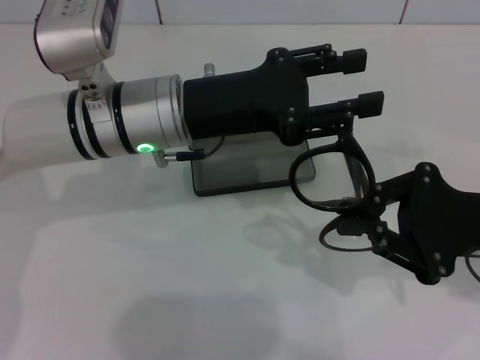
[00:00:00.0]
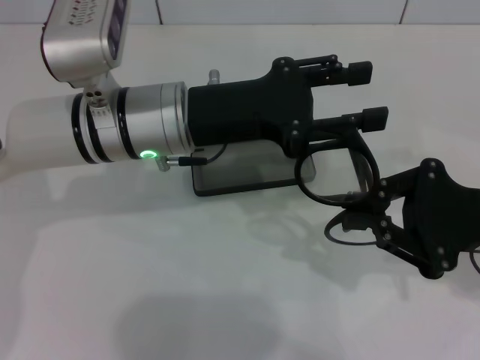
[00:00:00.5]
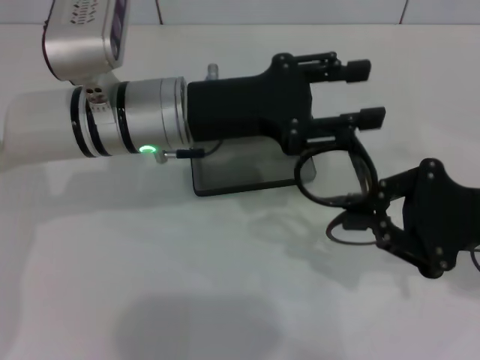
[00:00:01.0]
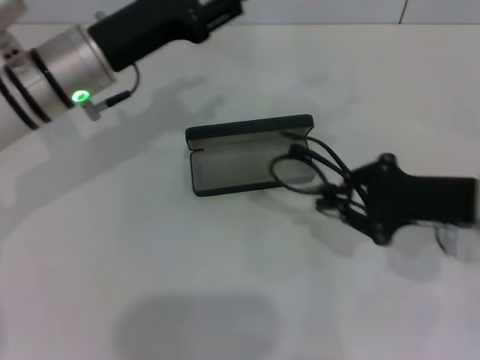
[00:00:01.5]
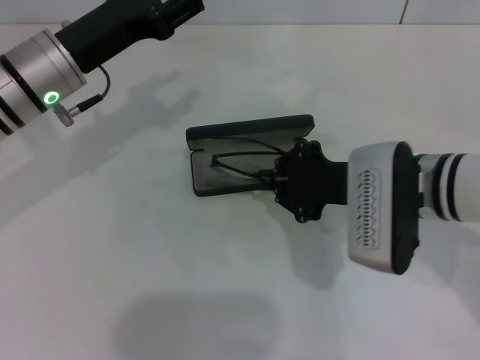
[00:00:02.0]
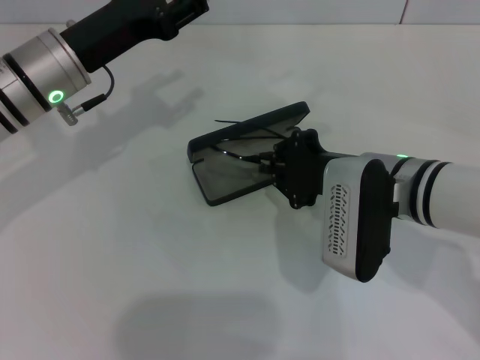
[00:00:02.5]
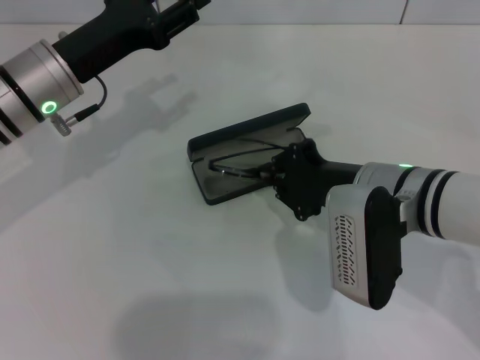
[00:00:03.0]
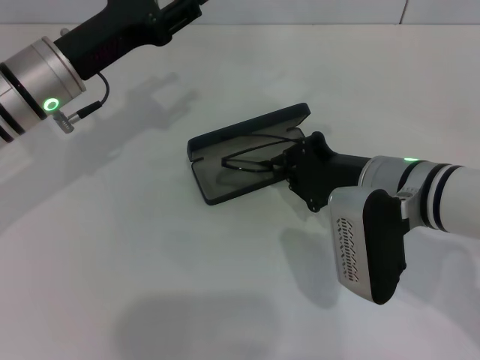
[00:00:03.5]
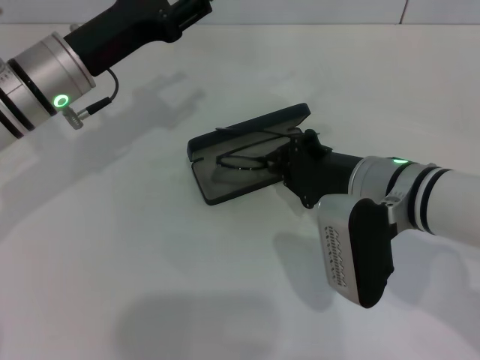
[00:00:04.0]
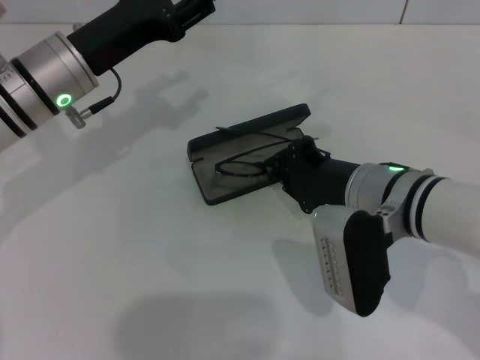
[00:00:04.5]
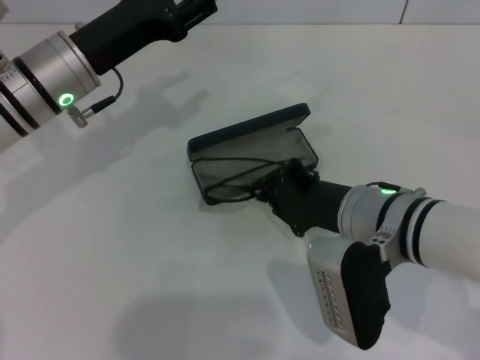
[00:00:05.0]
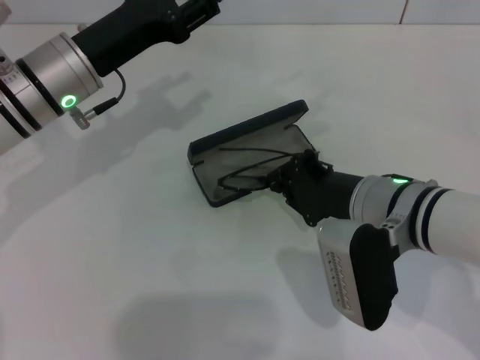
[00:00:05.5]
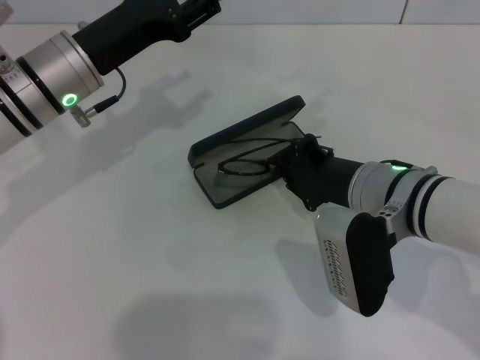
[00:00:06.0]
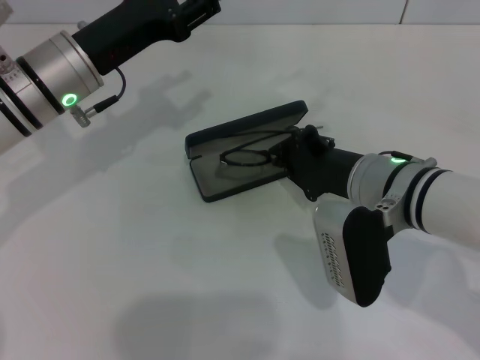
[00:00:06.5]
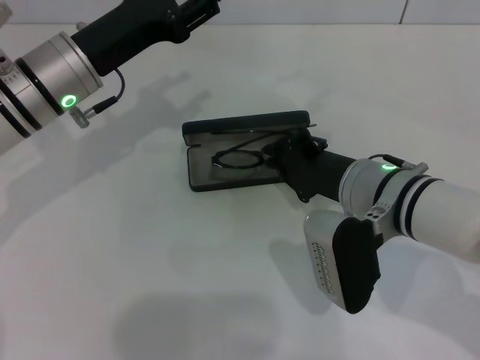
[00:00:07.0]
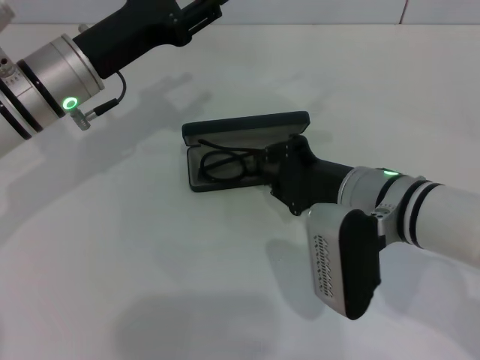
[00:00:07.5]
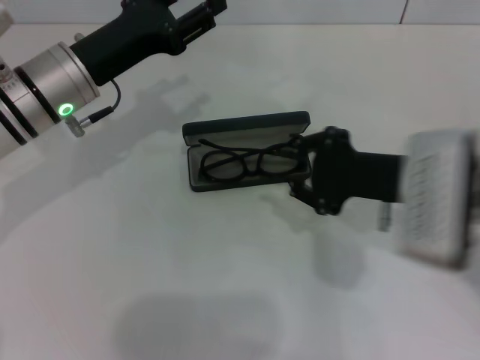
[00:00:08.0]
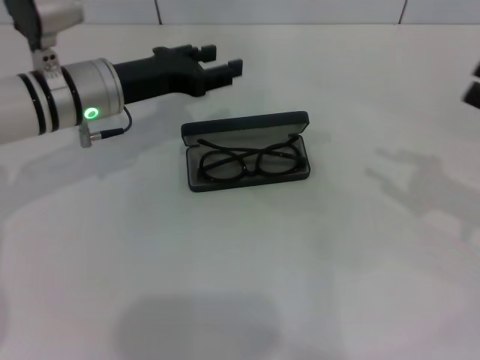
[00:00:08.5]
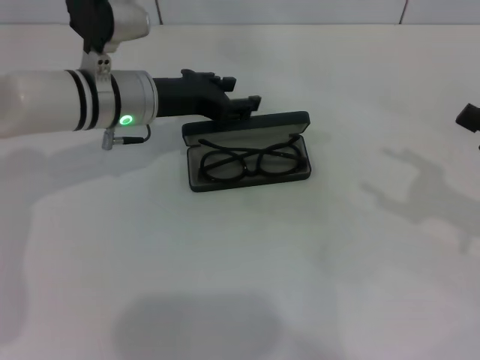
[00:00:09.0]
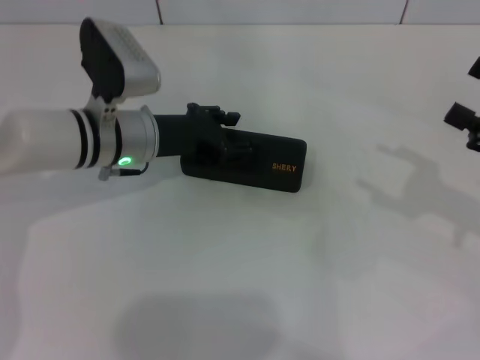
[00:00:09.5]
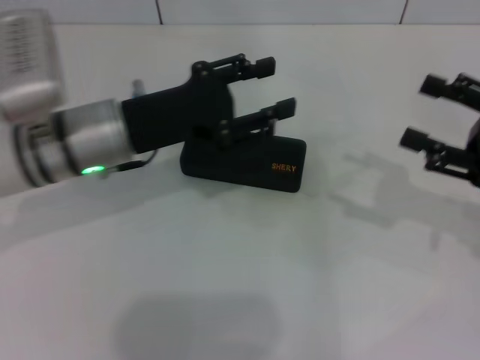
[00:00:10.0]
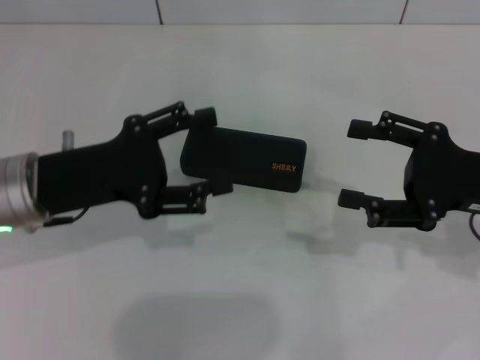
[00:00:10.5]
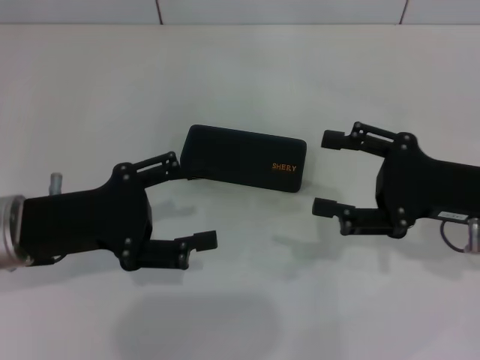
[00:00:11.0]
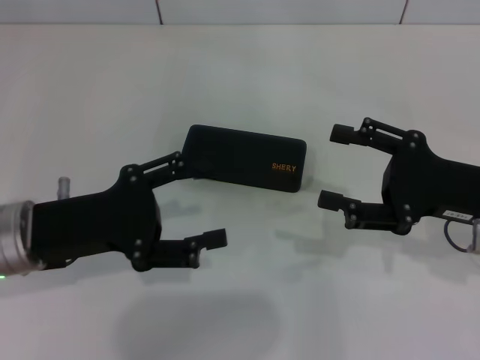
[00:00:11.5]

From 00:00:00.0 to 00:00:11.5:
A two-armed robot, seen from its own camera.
Step, from 00:00:01.0 to 00:00:07.0: Put the glasses into the case with your right hand.
Step, from 00:00:08.0 to 00:00:09.5: Close the glasses case with your left hand.
From 00:00:00.0 to 00:00:02.0: Both grippers travel together to the left, roughly 10 cm.
From 00:00:04.0 to 00:00:07.5: The grippers make only small movements.
From 00:00:07.5 to 00:00:09.5: The right gripper heads to the right, covering about 20 cm, and opens up. Meanwhile the left gripper travels downward by approximately 5 cm.
From 00:00:09.5 to 00:00:11.5: The right gripper heads to the left, covering some 10 cm. Meanwhile the left gripper is displaced backward and to the left by approximately 15 cm.

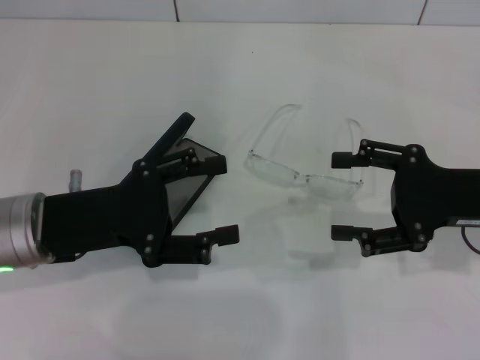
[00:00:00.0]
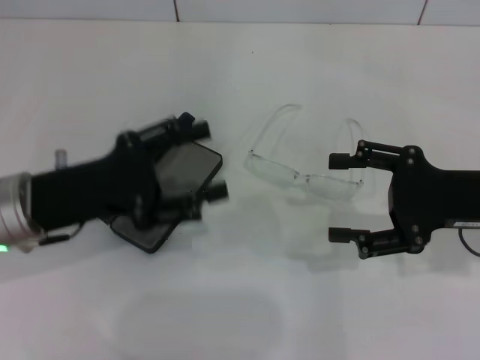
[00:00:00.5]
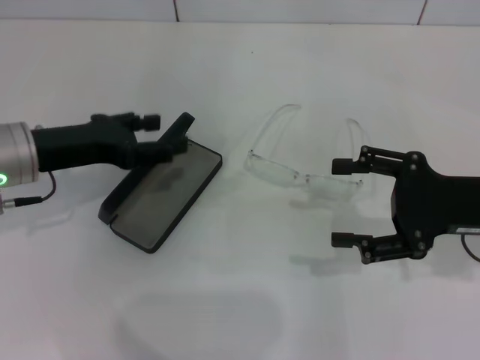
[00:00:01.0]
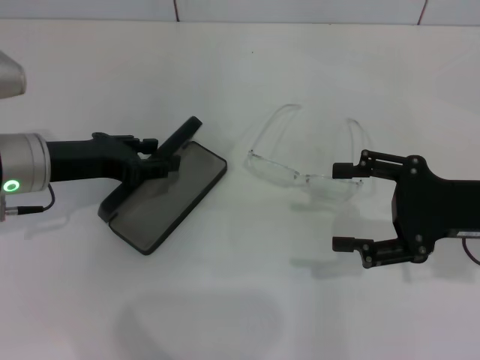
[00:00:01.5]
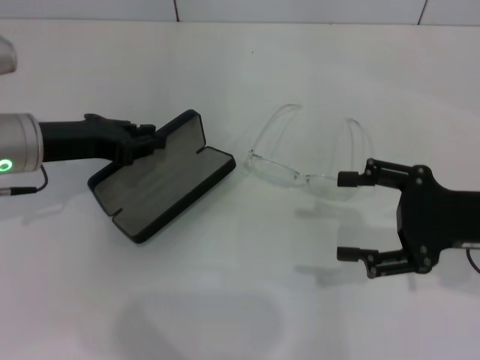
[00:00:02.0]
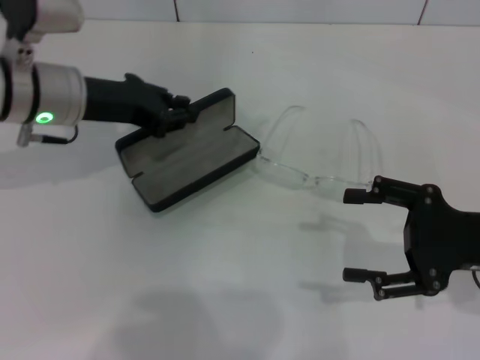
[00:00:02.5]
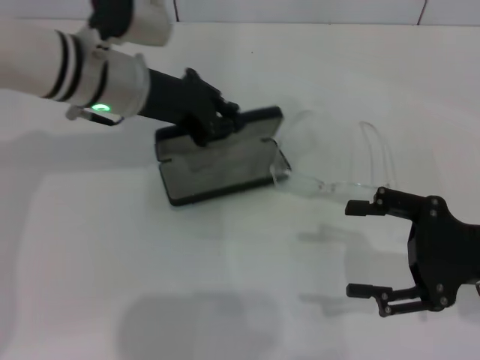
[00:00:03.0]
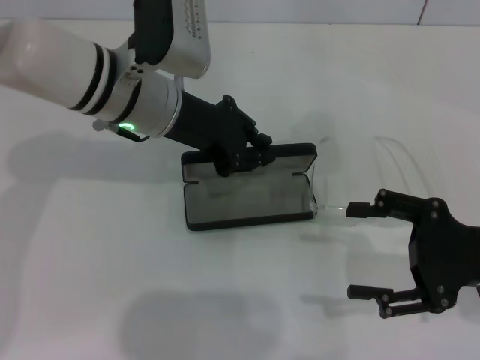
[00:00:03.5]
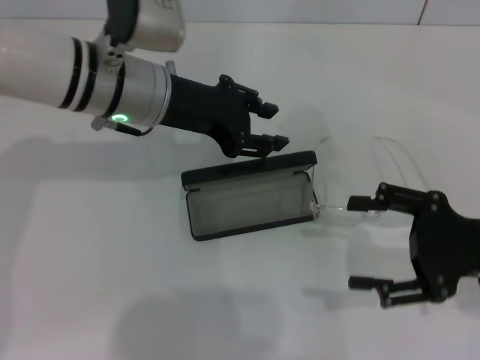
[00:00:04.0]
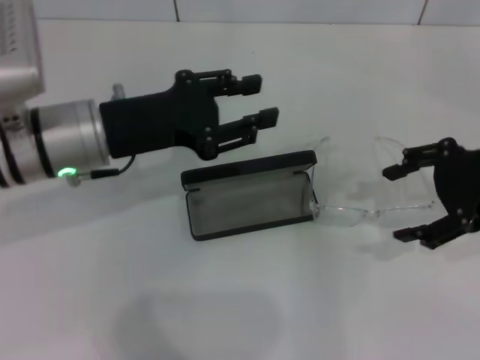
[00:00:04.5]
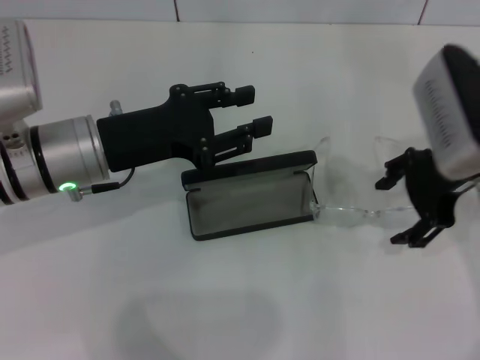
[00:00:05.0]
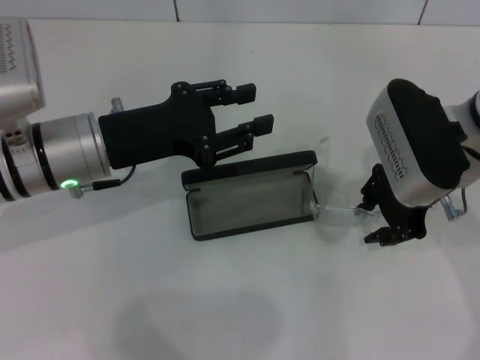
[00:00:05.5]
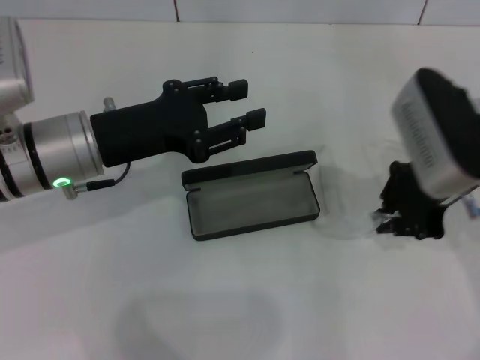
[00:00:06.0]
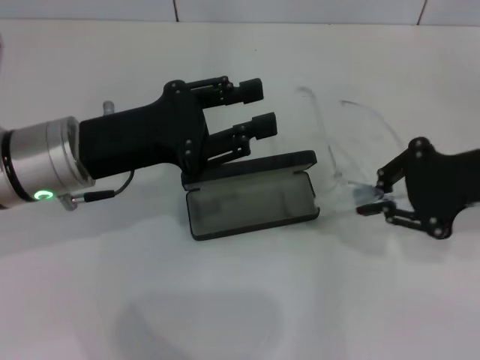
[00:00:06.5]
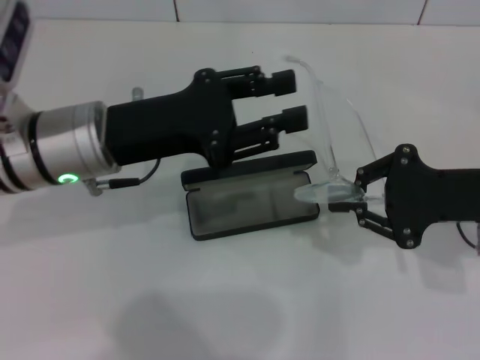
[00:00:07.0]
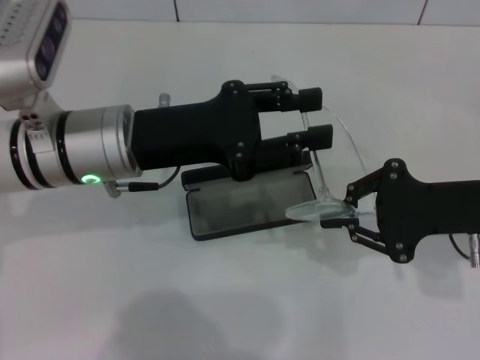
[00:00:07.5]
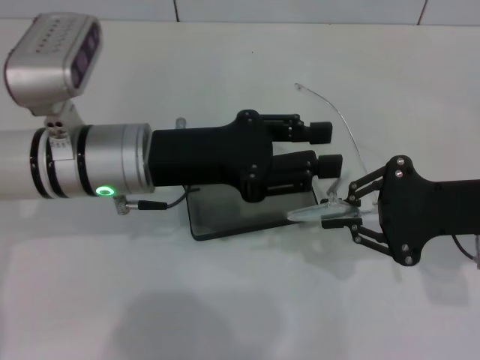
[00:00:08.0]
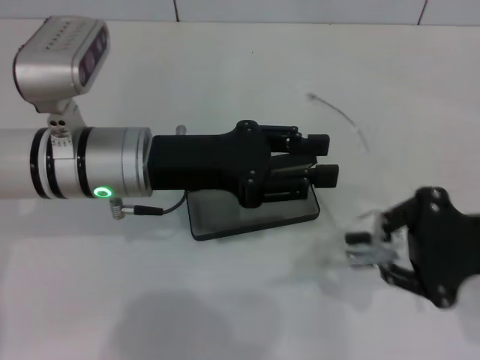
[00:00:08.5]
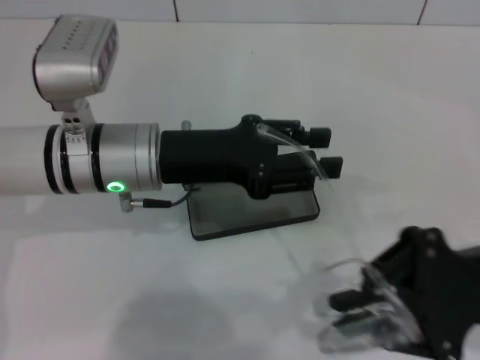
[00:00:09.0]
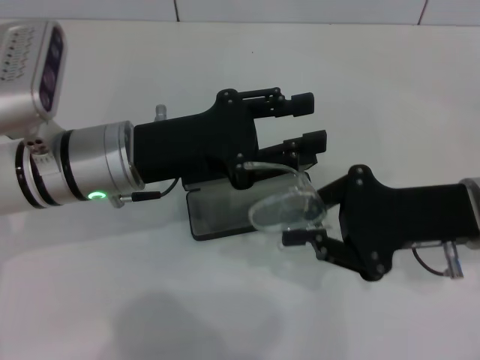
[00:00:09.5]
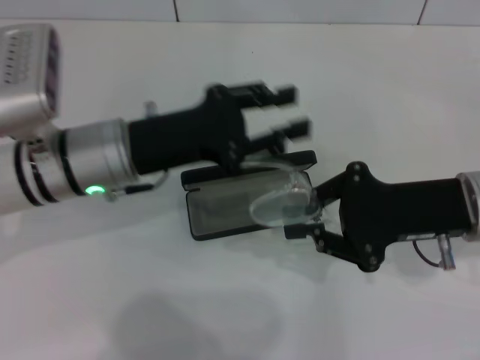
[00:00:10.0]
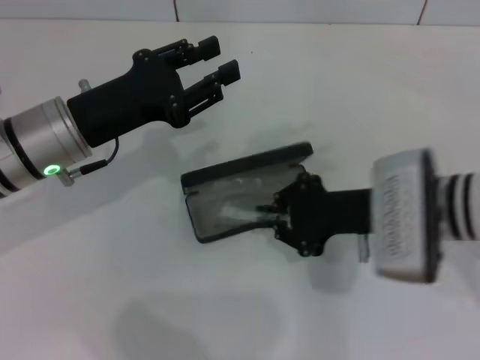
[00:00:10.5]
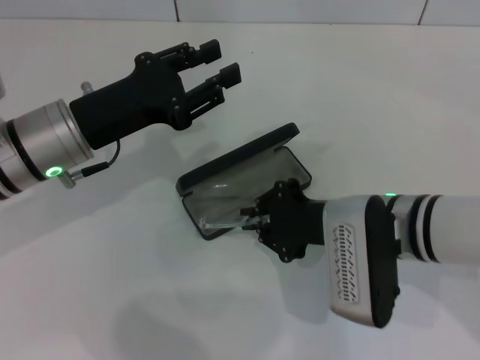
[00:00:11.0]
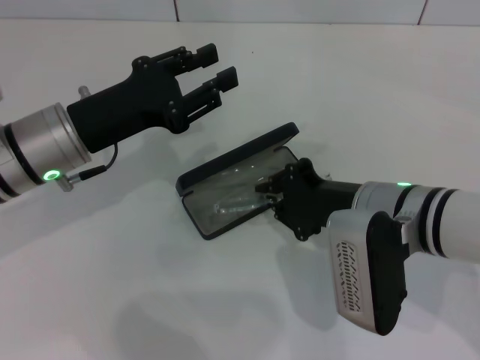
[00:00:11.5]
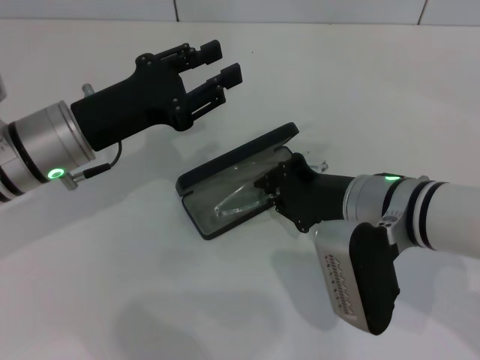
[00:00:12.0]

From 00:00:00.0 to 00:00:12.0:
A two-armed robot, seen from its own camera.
Step, from 00:00:00.0 to 00:00:01.5: Grab the glasses case with your left hand.
Step, from 00:00:02.5 to 00:00:03.5: Place the glasses case in the center of the table with your left hand.
Step, from 00:00:04.5 to 00:00:05.5: Grab the eyeglass frame with your right hand.
Step, from 00:00:06.0 to 00:00:09.5: Lift the glasses with your right hand.
From 00:00:00.0 to 00:00:02.0: The left gripper moves forward, some 10 cm, and closes up.
From 00:00:02.0 to 00:00:04.0: The left gripper is displaced to the right by roughly 10 cm.
From 00:00:04.0 to 00:00:06.0: The right gripper heads forward, to the left and upward, covering some 15 cm, and closes its fingers. Meanwhile the left gripper travels backward and to the left by about 10 cm.
From 00:00:06.0 to 00:00:08.0: The right gripper shifts some 10 cm to the right and backward.
From 00:00:10.0 to 00:00:12.0: The right gripper moves to the left, roughly 10 cm.

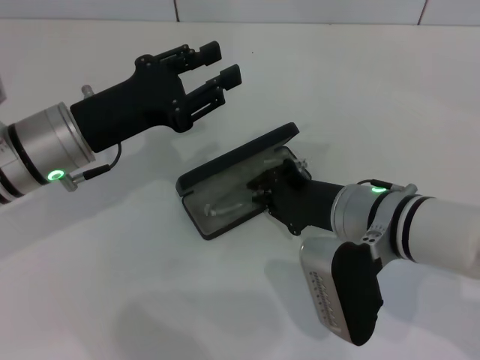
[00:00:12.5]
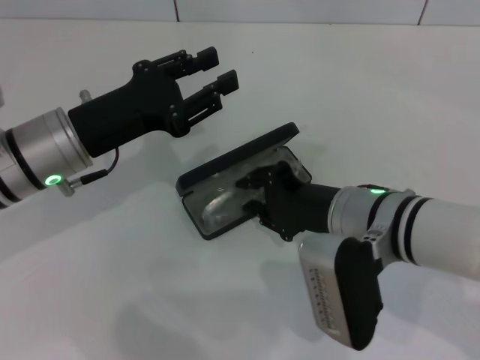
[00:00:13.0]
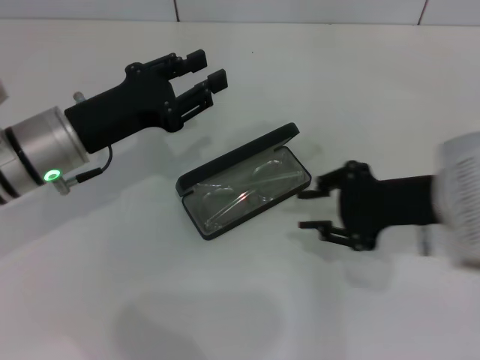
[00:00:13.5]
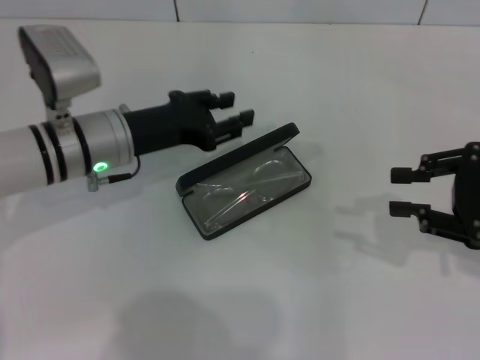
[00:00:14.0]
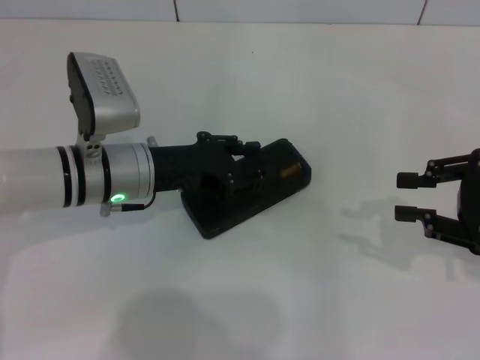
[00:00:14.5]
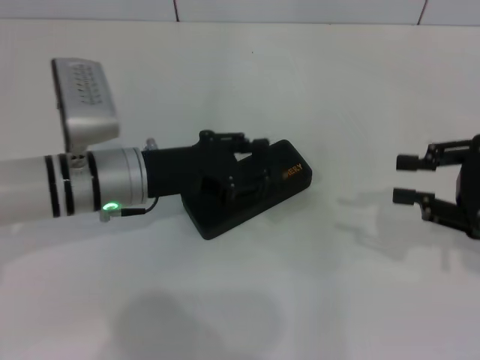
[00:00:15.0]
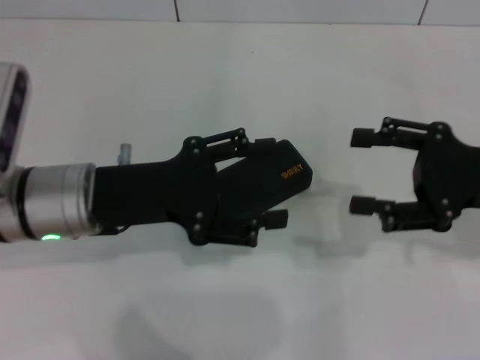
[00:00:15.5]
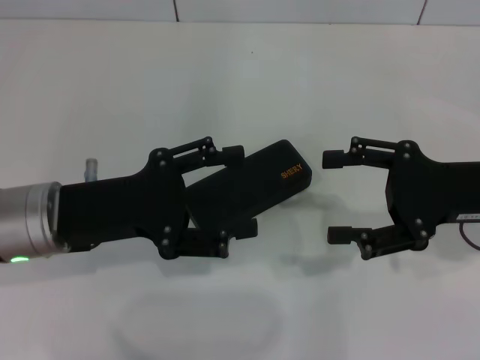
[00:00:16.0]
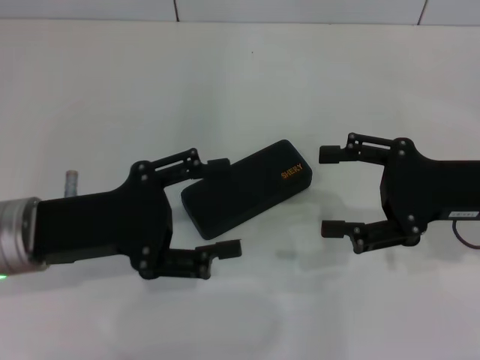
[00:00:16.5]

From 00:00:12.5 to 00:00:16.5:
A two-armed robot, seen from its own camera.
Step, from 00:00:13.5 to 00:00:14.5: Close the glasses case with your left hand.
From 00:00:12.5 to 00:00:14.5: The right gripper moves to the right, some 20 cm, and opens. The left gripper ends up roughly 5 cm from where it was.
From 00:00:14.5 to 00:00:16.5: The left gripper heads backward and to the left, covering approximately 10 cm, and opens its fingers, while the right gripper is displaced to the left by about 5 cm, and opens its fingers.
